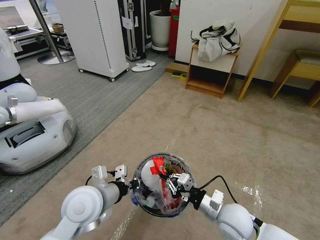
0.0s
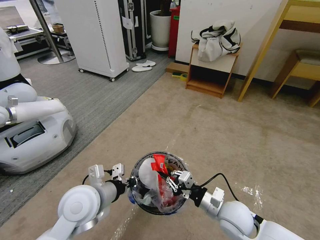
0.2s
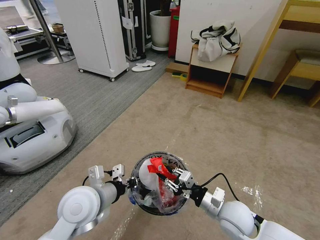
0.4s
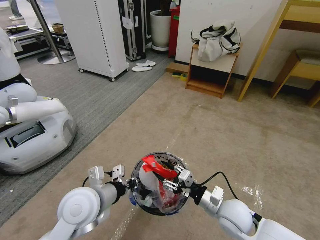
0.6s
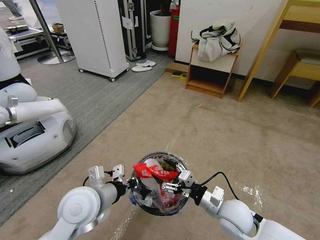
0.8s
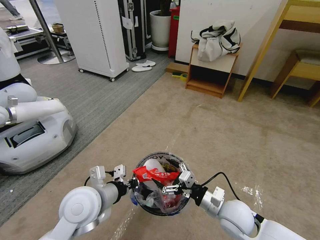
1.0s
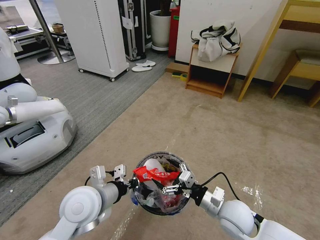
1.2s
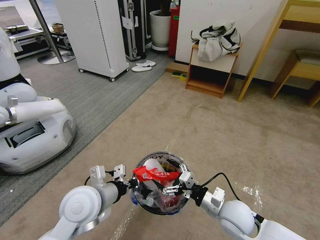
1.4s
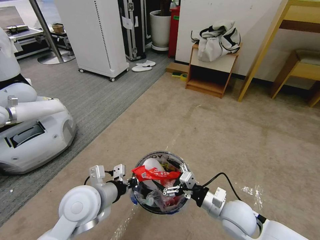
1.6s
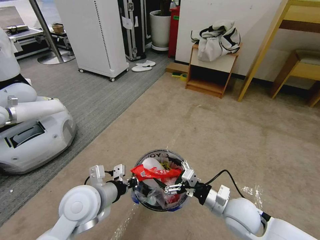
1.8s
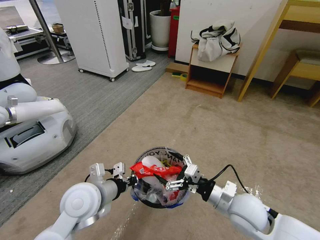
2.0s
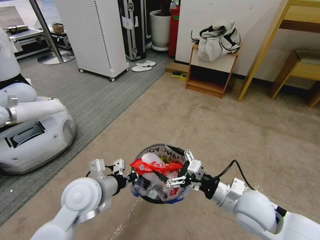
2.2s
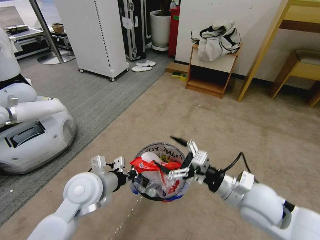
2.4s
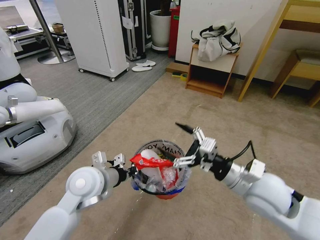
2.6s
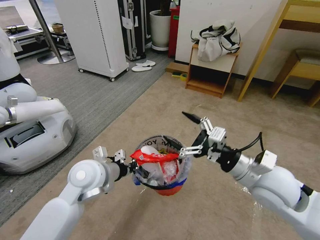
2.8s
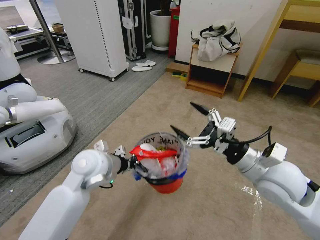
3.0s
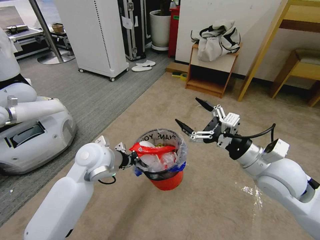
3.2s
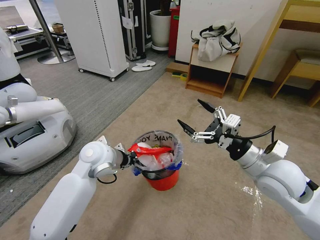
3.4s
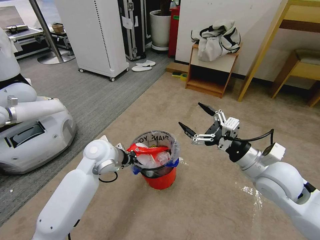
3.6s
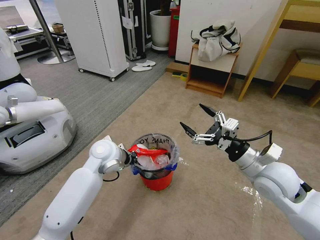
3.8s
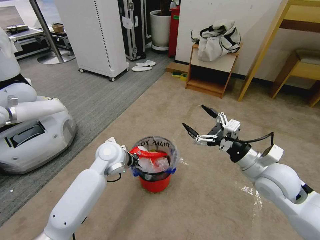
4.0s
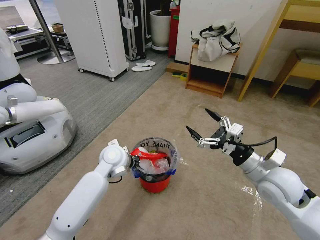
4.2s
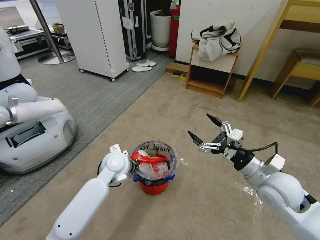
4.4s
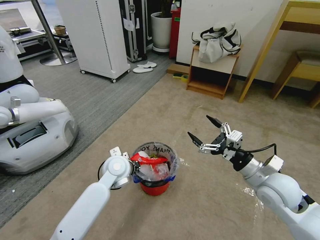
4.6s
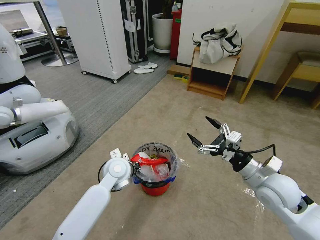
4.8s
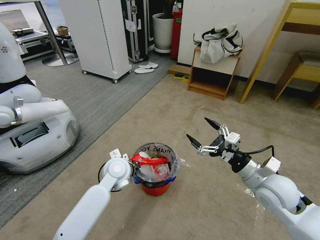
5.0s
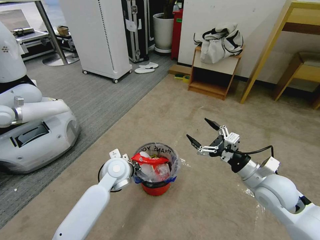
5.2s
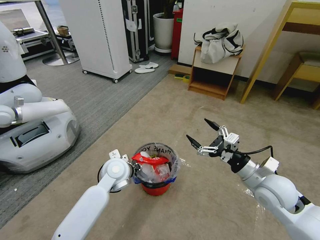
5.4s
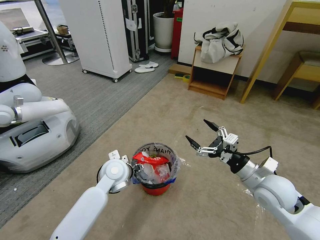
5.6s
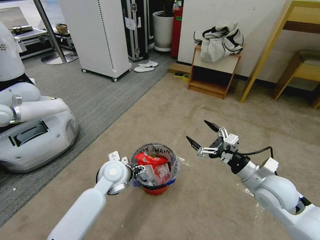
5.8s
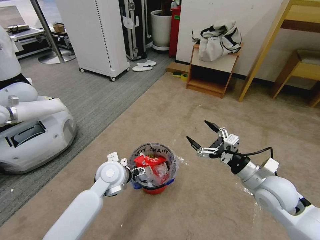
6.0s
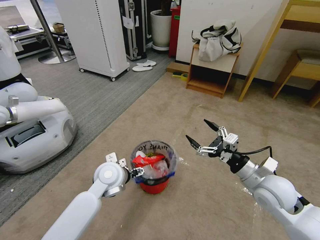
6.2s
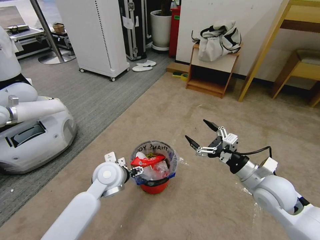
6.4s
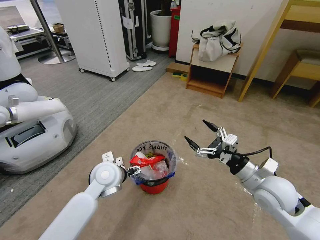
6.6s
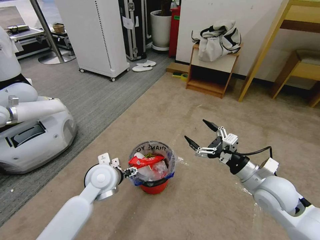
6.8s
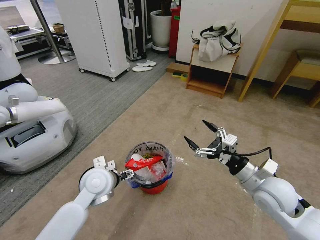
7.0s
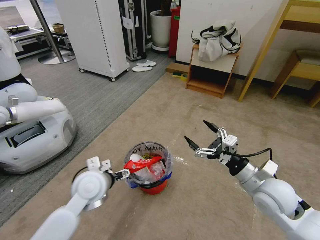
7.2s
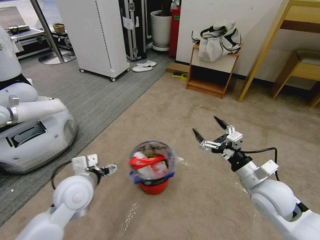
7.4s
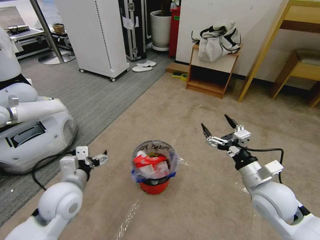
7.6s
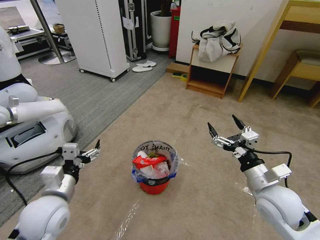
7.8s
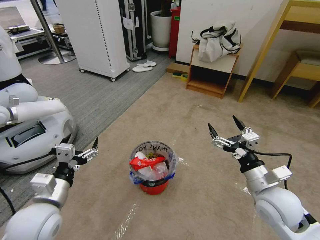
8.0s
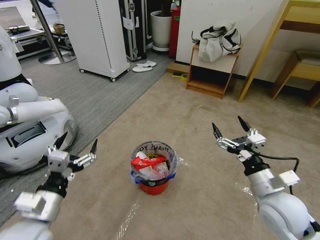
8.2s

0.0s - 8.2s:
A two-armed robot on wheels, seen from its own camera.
Task of the whole recording: Pick up the trash bin and place the garbage on the floor into it.
0.0s - 1.6s: The right gripper opens its fingers.
1.6s - 3.2s: The left gripper travels forward by roughly 10 cm; the right gripper heads upward, covering roughly 15 cm.
3.2s - 5.0s: Both grippers move downward, some 10 cm.
5.0s - 6.6s: The left gripper opens.
6.6s - 8.2s: The left gripper is displaced backward and to the left by about 20 cm.

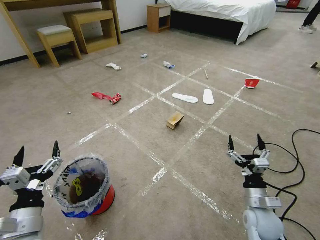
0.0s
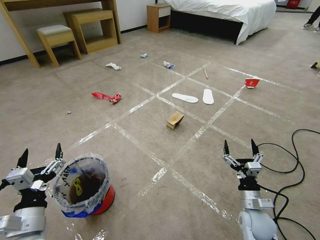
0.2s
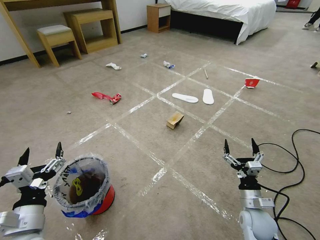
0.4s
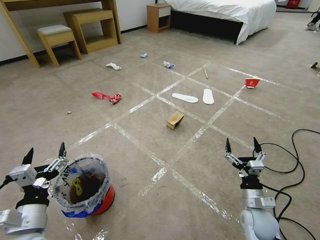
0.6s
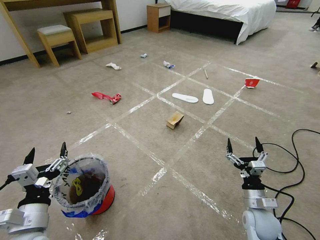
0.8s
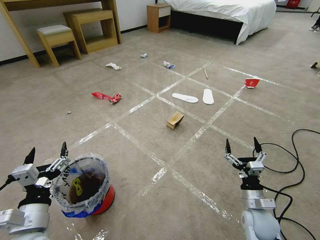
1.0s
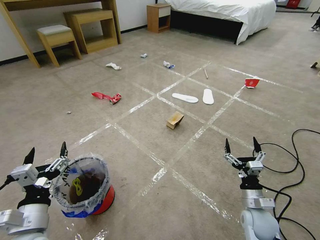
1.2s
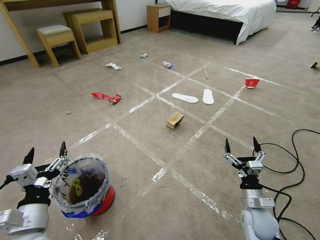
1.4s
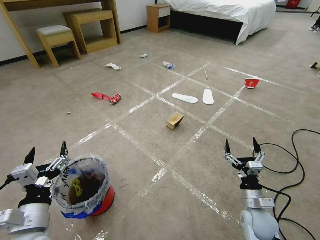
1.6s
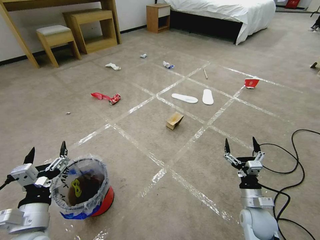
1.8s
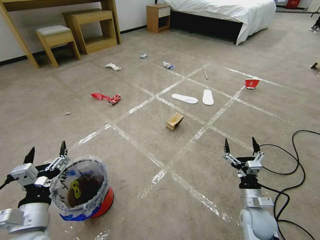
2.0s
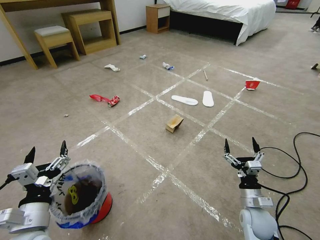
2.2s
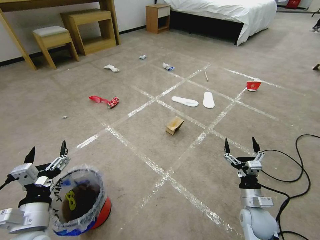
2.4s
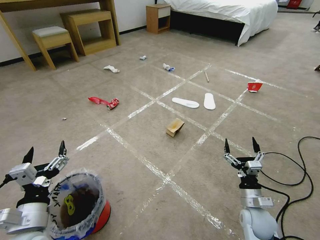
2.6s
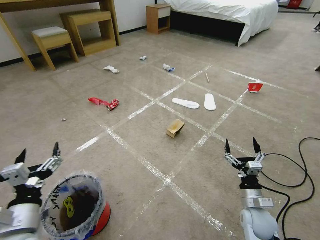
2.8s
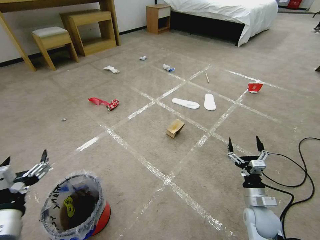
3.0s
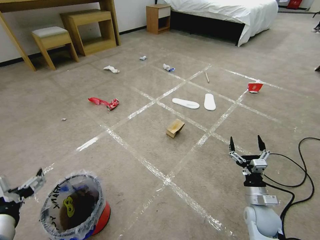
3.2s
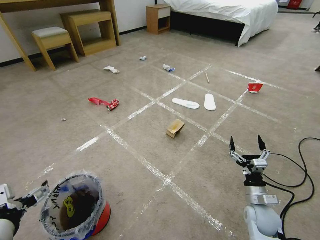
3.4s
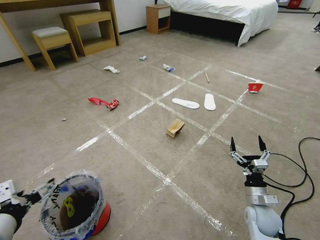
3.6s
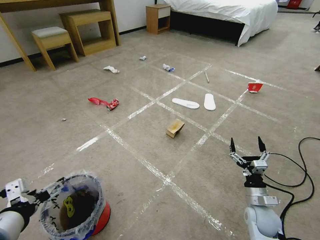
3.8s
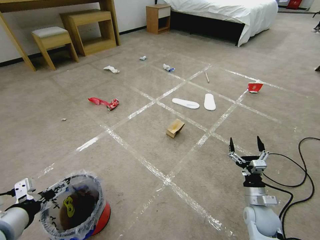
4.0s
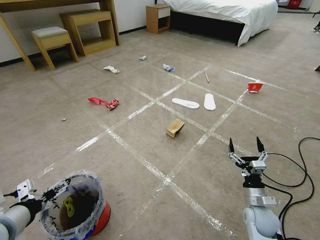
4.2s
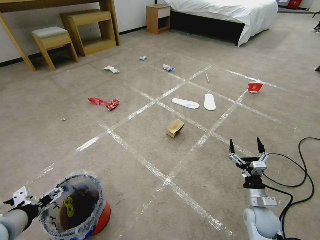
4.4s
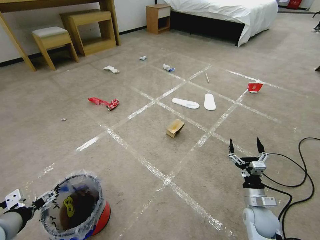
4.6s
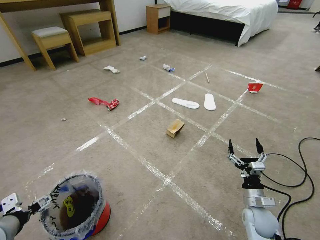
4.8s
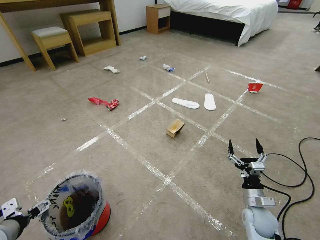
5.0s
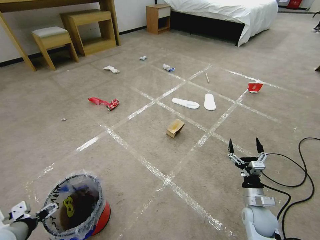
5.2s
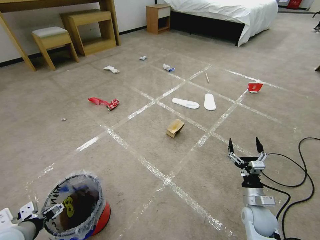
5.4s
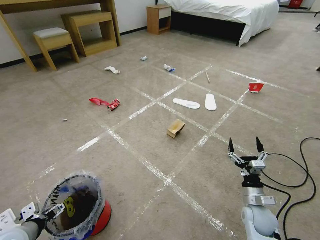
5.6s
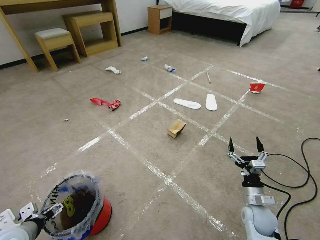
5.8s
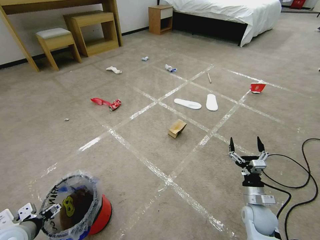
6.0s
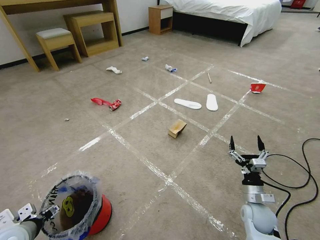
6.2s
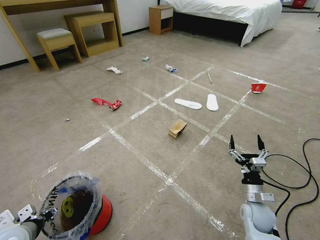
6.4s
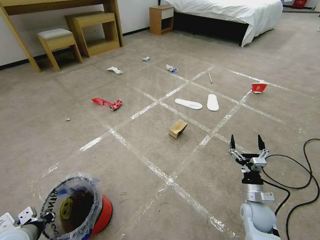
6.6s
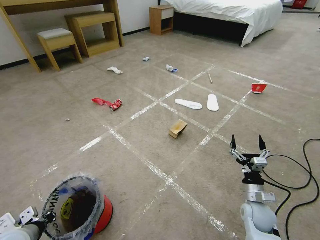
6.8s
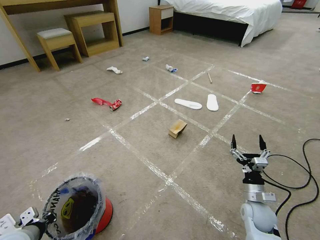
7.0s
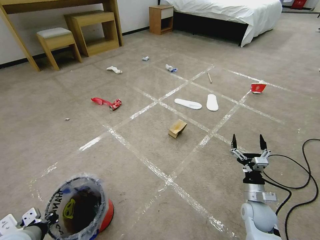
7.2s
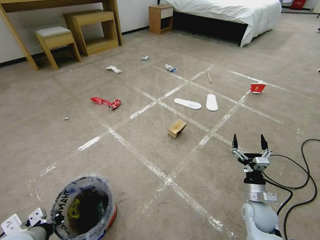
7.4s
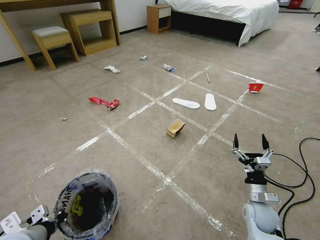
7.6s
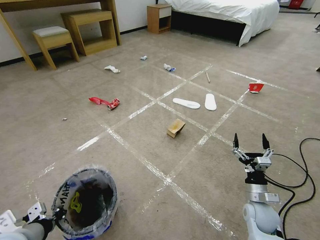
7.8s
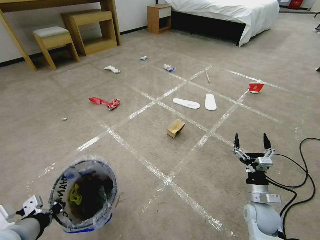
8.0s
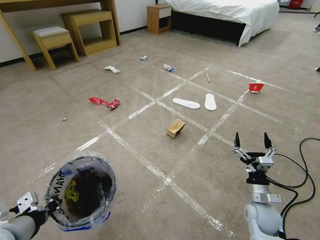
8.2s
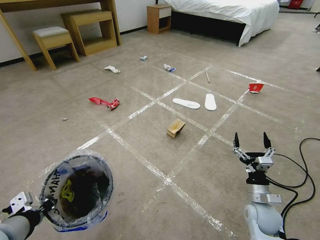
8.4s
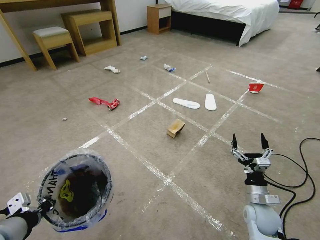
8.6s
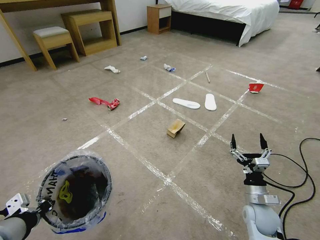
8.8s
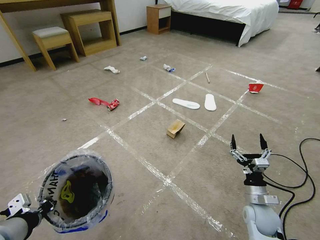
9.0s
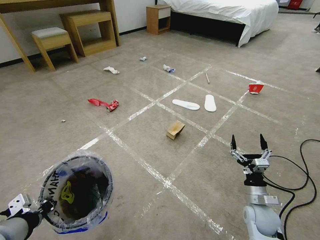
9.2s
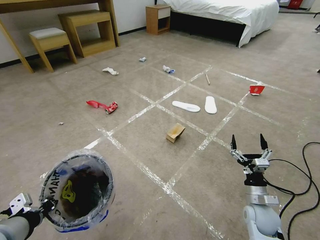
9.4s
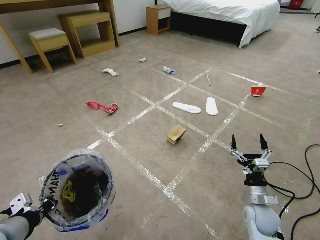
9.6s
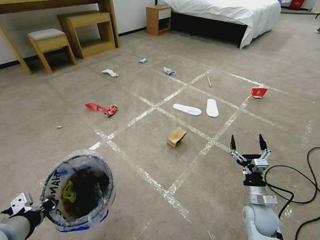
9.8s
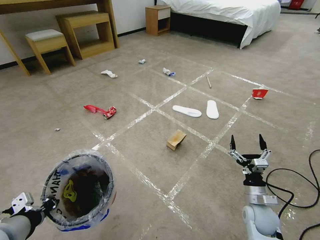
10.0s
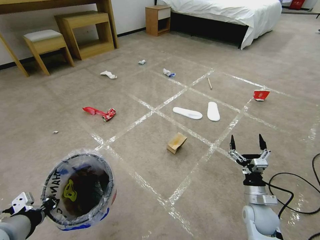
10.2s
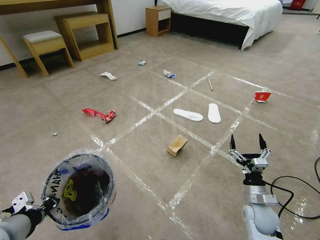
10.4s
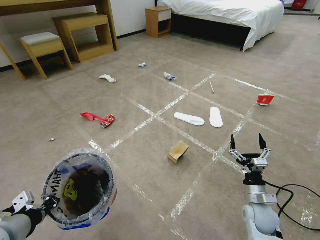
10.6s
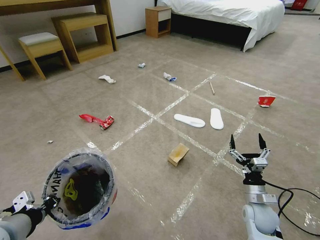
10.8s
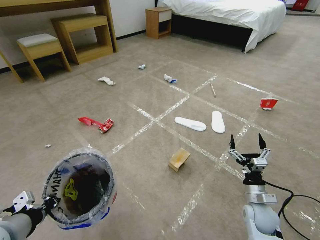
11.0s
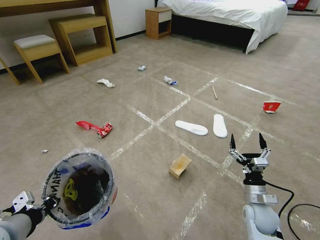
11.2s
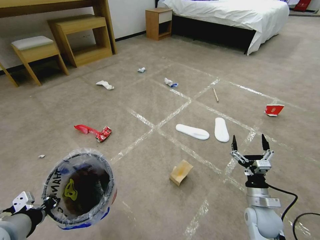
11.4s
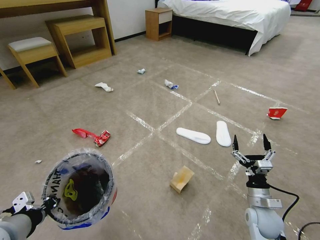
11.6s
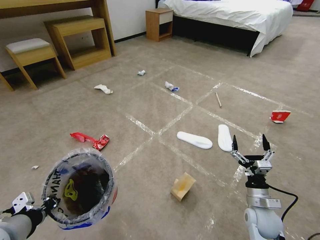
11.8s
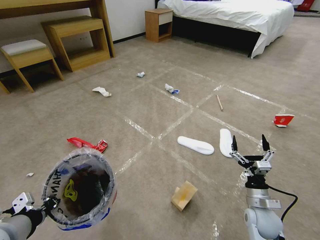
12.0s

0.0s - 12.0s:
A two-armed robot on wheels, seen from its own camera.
Task of the whole recording: Pick up the trash bin and place the garbage on the floor into it.
1.6s - 3.0s: The left gripper is displaced upward by approximately 5 cm.
3.0s - 4.4s: The left gripper heads to the left, covering about 5 cm.
4.4s - 6.0s: The left gripper heads downward, covering some 10 cm.
6.0s - 7.6s: The left gripper heads to the right, covering roughly 5 cm, and closes up.
7.6s - 9.0s: The left gripper goes some 10 cm upward.

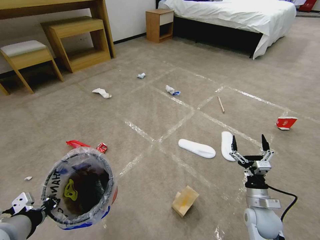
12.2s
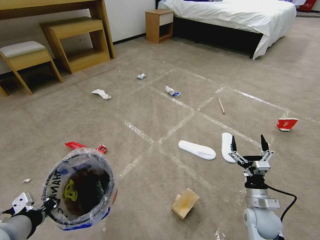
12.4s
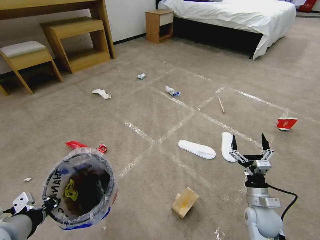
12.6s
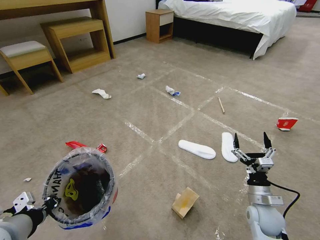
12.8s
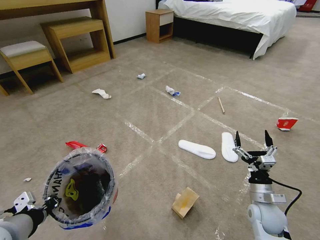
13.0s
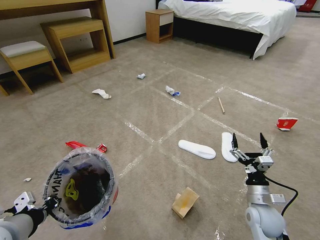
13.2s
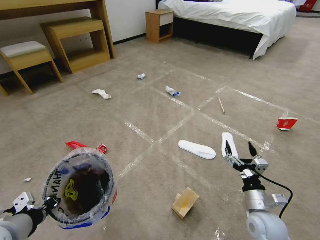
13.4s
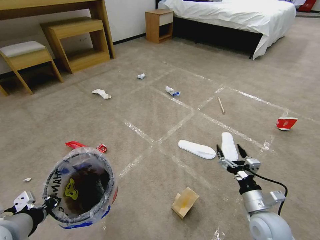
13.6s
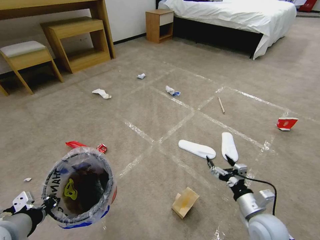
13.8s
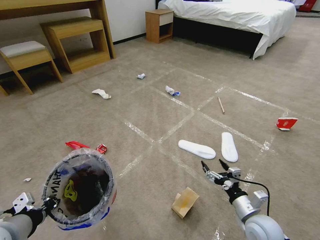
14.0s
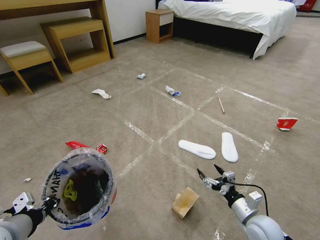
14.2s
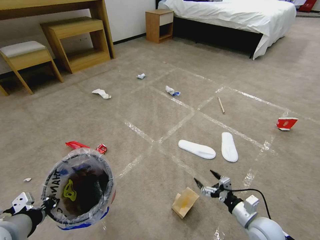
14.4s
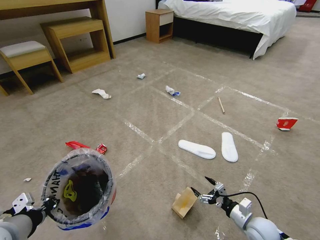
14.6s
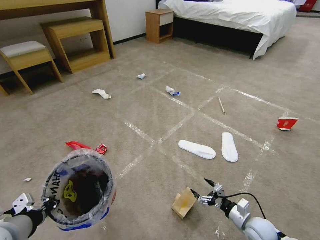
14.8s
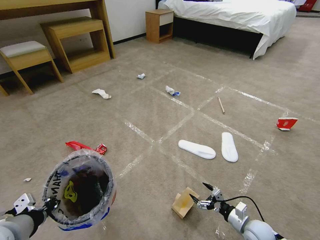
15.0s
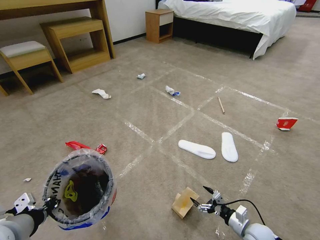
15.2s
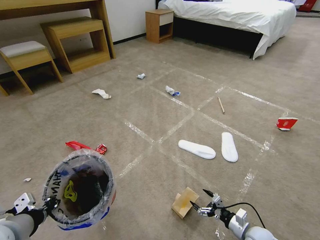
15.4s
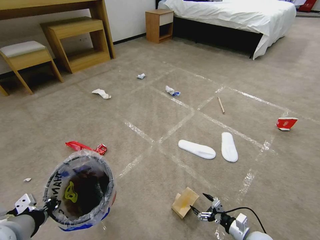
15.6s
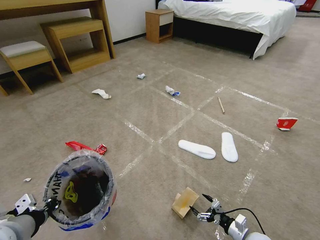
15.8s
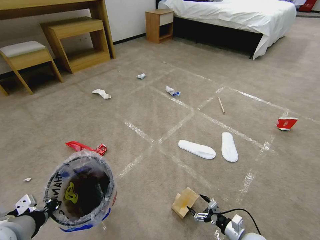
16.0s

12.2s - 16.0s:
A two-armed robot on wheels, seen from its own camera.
Task of the whole recording: Pick up the trash bin and place the garbage on the floor into it.
13.4s - 14.8s: The right gripper goes some 10 cm downward.
14.8s - 16.0s: The right gripper goes some 5 cm downward.
